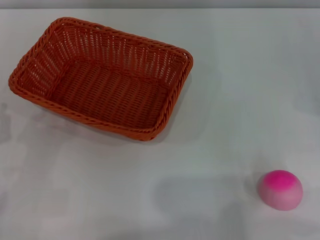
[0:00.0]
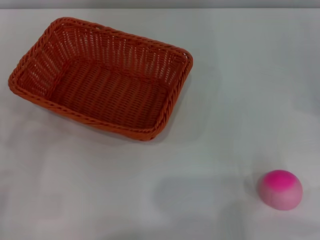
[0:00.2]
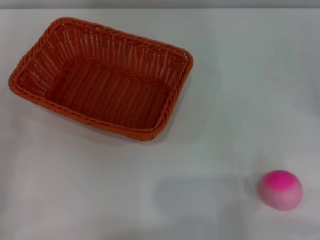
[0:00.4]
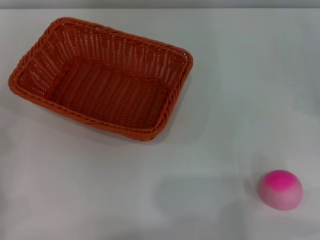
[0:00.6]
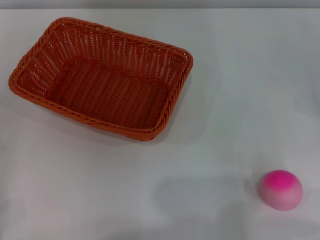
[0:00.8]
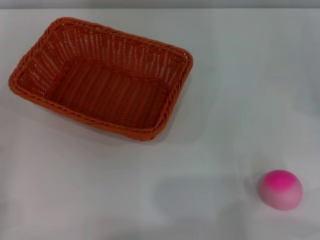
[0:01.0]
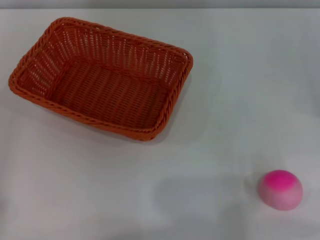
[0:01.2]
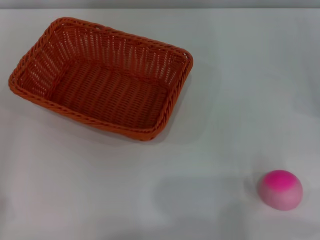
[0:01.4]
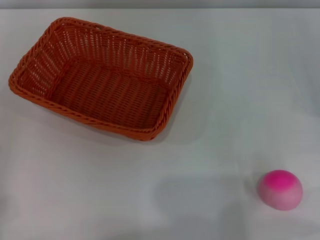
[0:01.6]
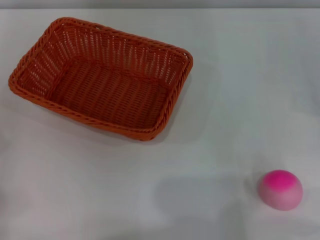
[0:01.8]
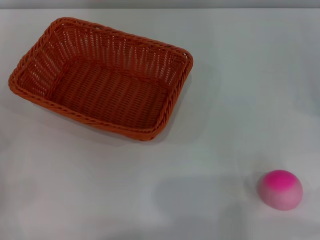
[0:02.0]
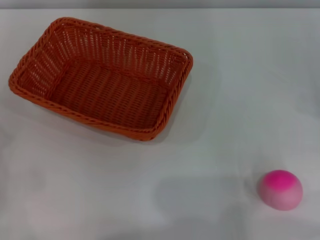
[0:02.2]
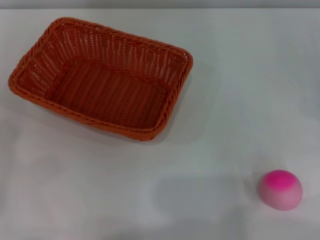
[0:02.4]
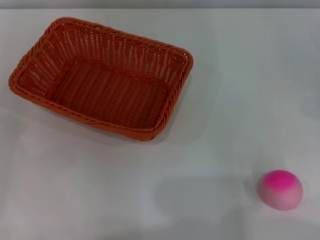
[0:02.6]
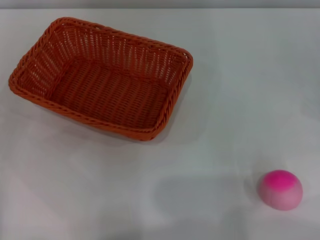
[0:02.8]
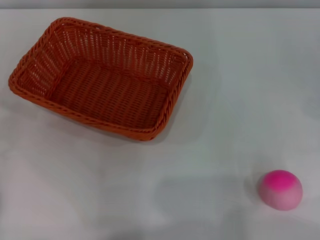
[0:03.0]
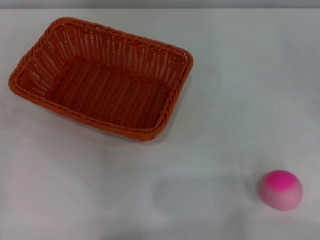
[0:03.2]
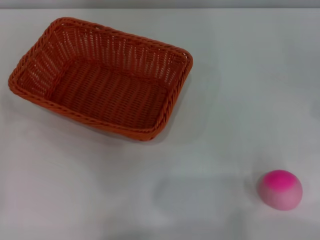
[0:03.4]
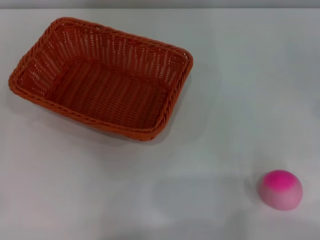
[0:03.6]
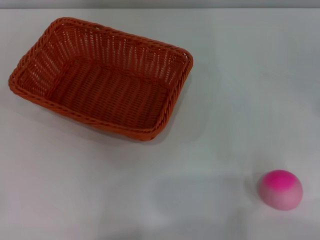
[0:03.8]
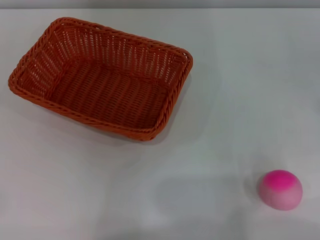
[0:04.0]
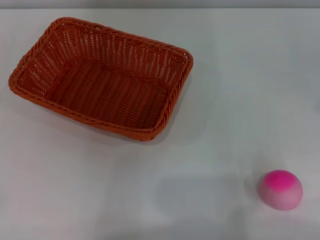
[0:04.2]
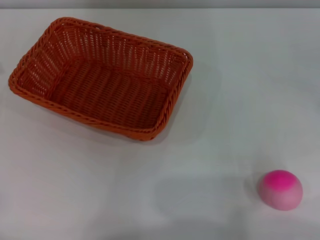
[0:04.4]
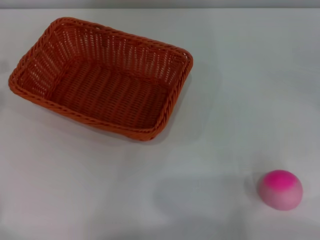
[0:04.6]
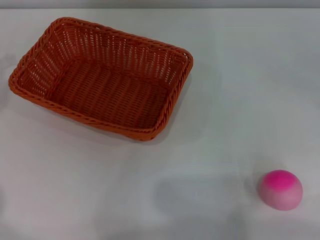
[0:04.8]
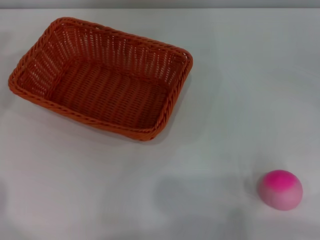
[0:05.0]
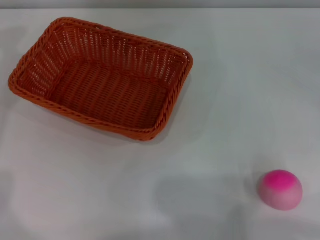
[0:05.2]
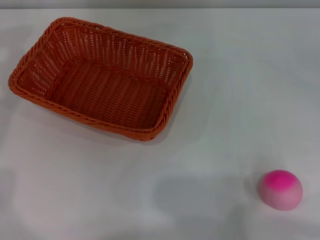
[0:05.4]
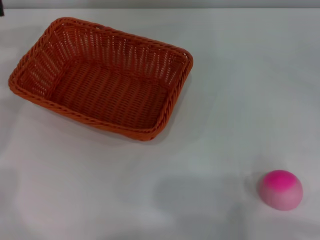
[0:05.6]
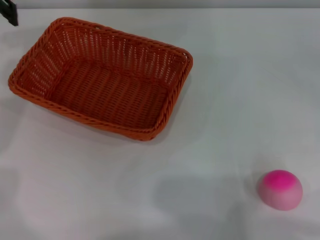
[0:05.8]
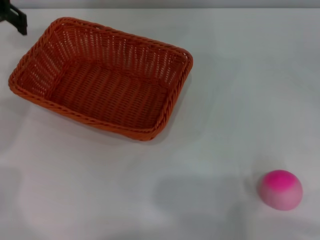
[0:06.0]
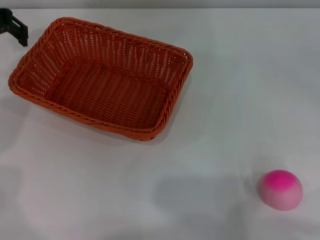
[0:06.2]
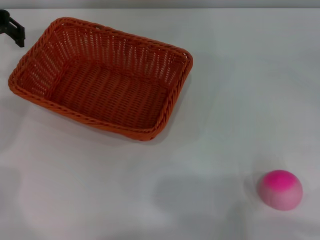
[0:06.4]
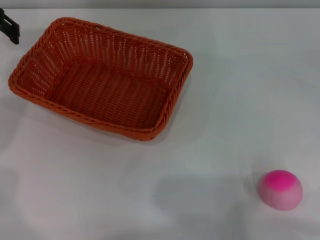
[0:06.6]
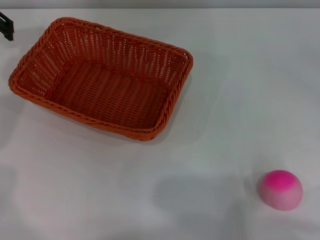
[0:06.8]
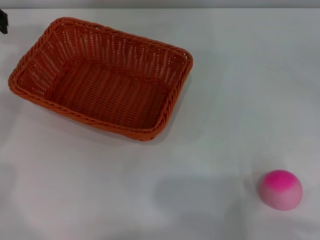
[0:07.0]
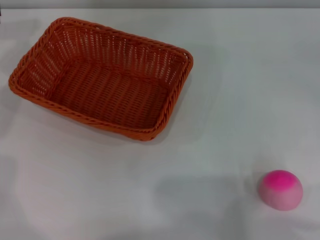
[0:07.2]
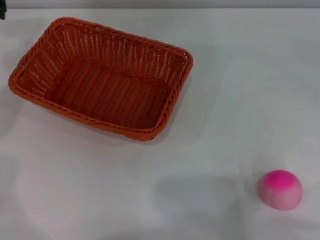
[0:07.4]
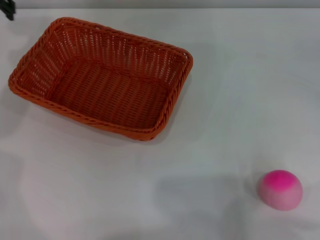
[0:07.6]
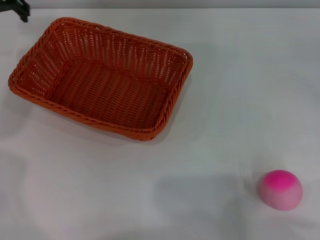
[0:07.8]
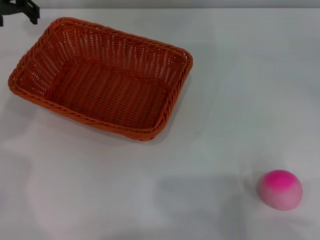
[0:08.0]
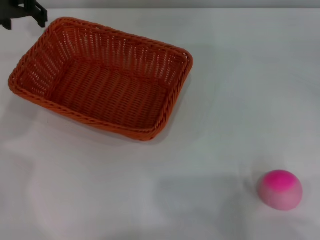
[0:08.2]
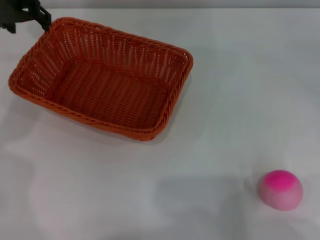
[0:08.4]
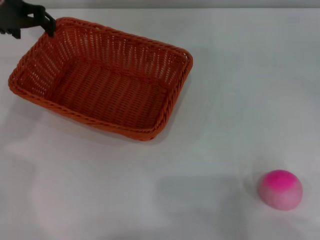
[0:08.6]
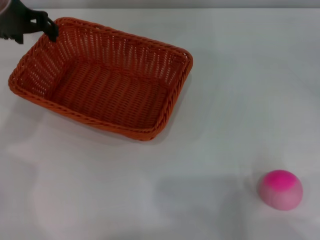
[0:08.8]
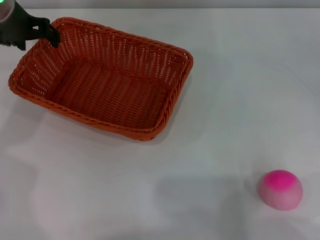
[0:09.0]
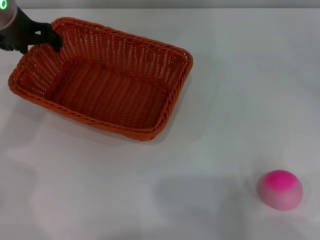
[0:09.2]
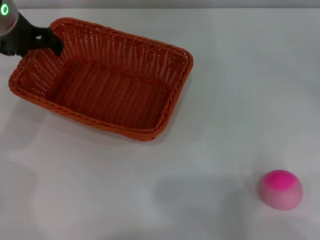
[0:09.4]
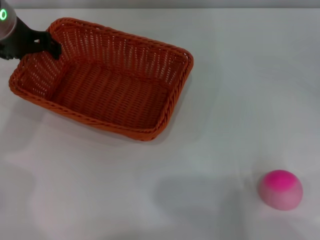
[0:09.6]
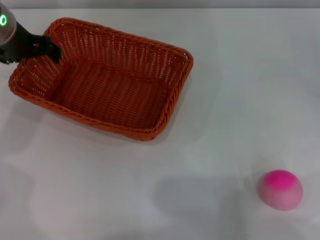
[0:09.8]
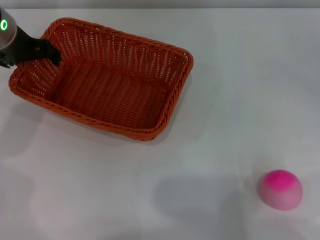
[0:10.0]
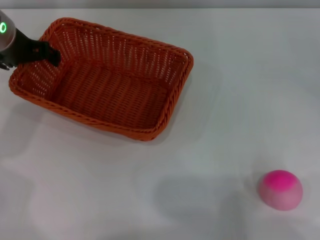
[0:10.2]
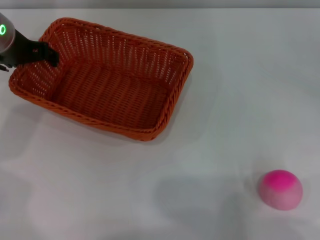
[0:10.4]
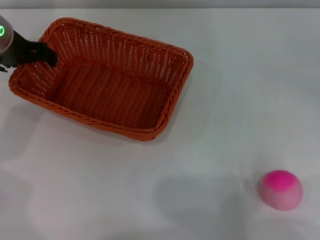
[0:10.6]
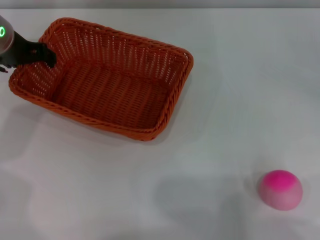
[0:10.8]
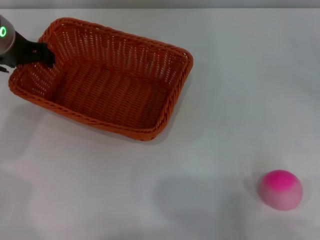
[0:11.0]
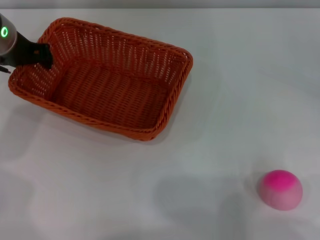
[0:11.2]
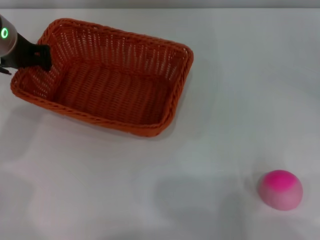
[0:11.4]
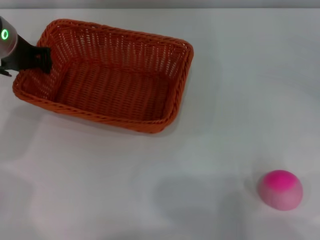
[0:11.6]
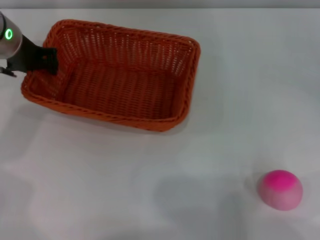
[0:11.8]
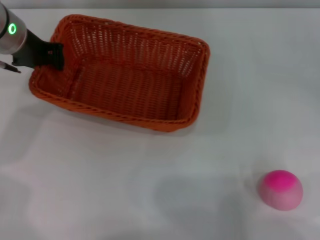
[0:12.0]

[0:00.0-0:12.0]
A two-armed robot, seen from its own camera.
0:04.4 to 0:06.0: The left gripper heads to the right and forward, covering approximately 10 cm.
0:07.6 to 0:09.0: The left gripper travels downward by some 5 cm.
0:09.0 to 0:10.4: The grippers make only small movements.
0:10.4 to 0:12.0: The left gripper closes its fingers.

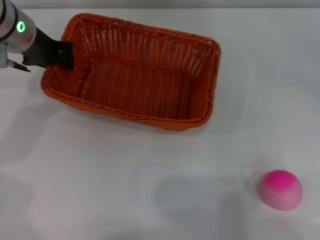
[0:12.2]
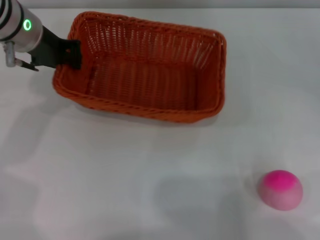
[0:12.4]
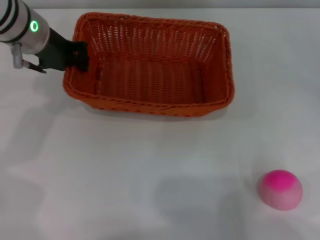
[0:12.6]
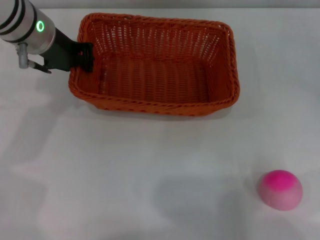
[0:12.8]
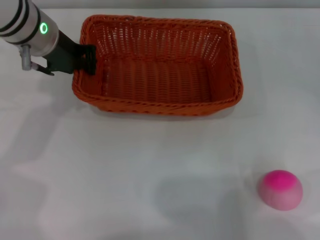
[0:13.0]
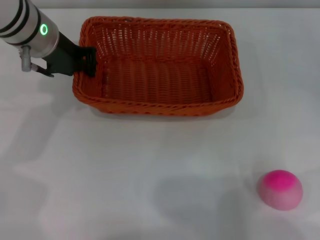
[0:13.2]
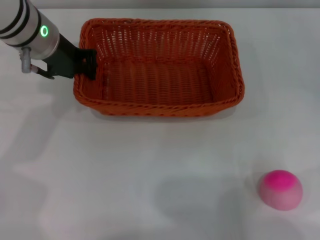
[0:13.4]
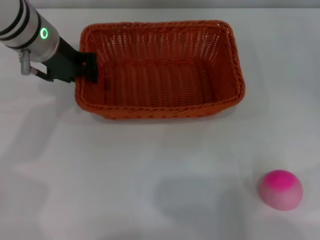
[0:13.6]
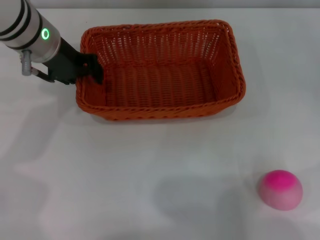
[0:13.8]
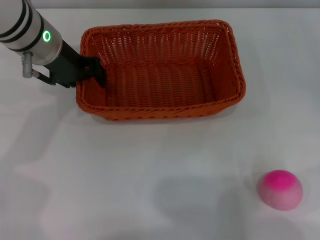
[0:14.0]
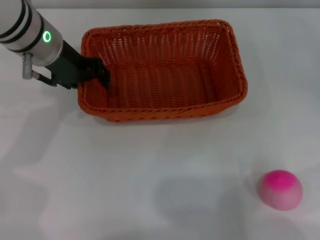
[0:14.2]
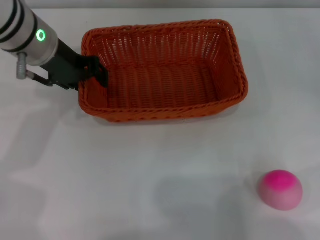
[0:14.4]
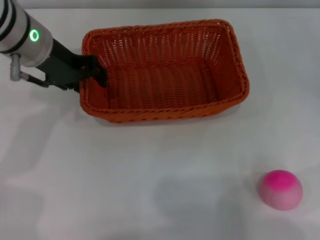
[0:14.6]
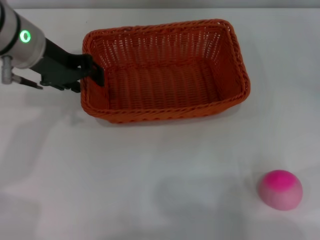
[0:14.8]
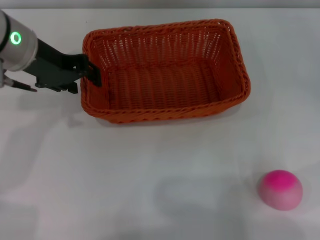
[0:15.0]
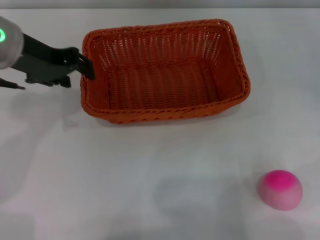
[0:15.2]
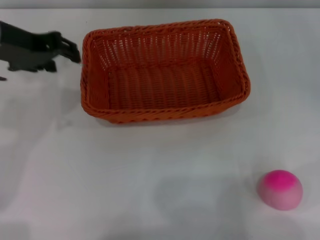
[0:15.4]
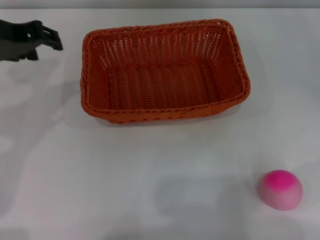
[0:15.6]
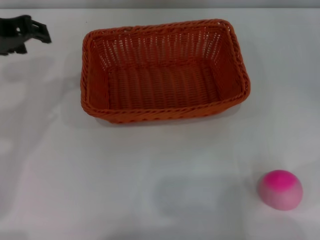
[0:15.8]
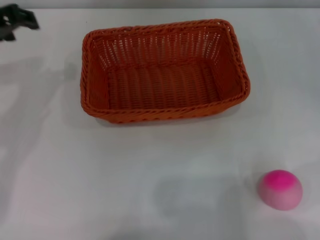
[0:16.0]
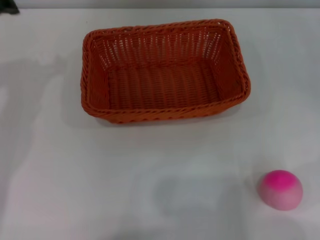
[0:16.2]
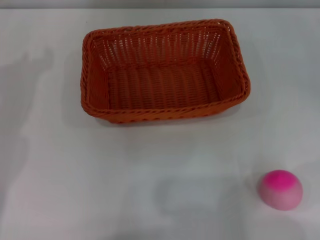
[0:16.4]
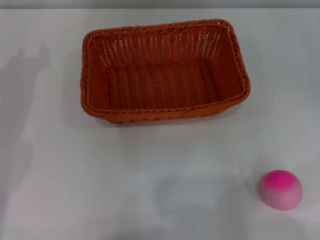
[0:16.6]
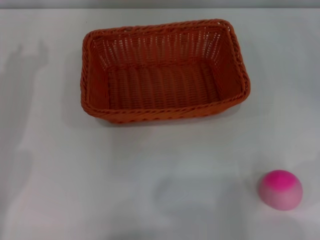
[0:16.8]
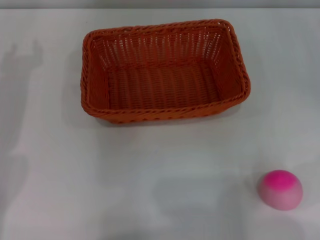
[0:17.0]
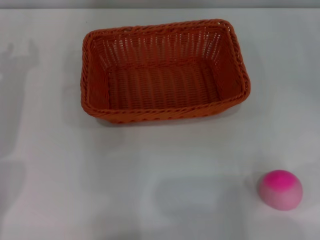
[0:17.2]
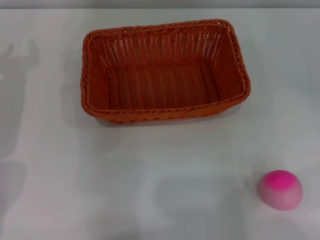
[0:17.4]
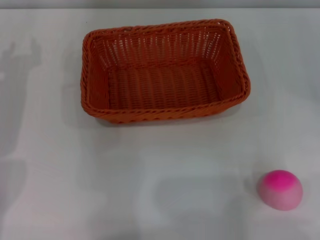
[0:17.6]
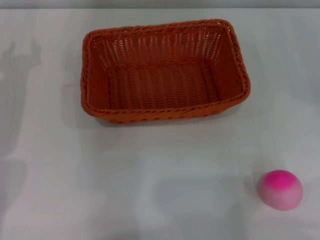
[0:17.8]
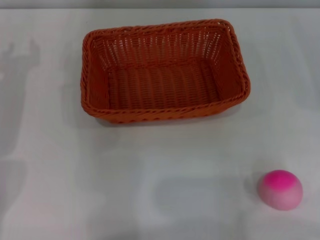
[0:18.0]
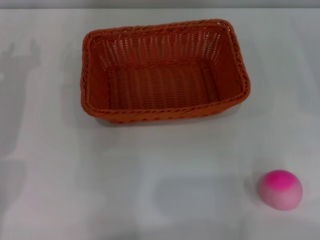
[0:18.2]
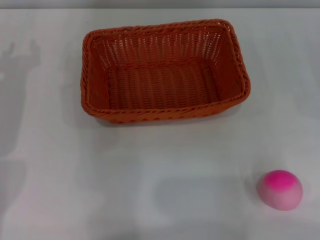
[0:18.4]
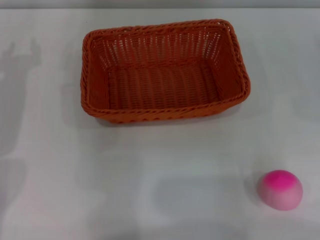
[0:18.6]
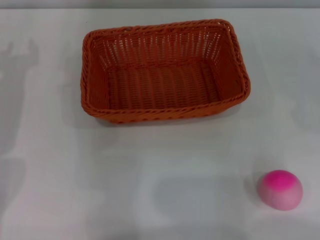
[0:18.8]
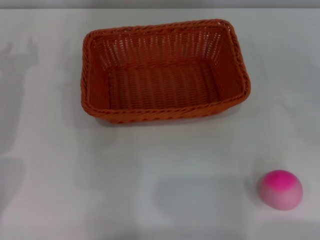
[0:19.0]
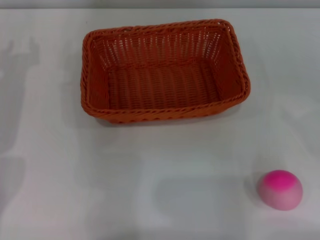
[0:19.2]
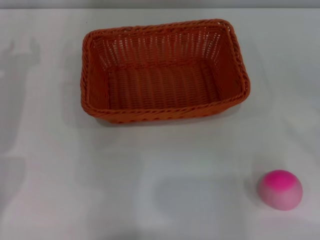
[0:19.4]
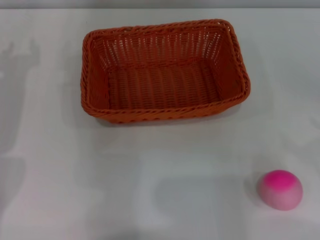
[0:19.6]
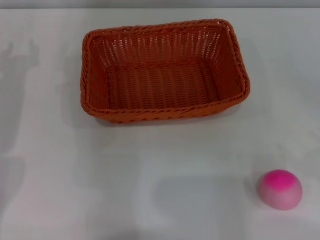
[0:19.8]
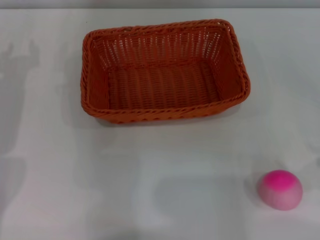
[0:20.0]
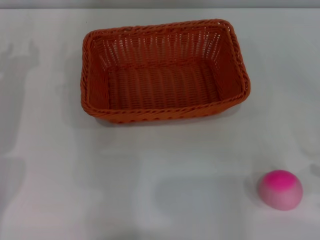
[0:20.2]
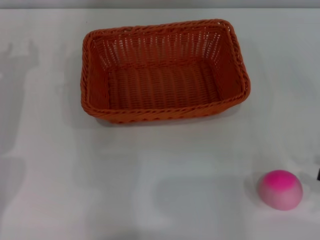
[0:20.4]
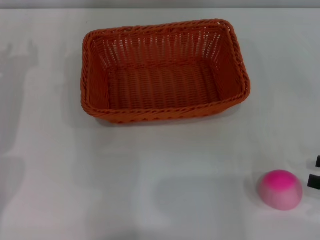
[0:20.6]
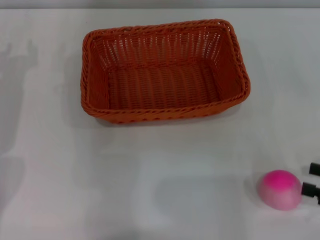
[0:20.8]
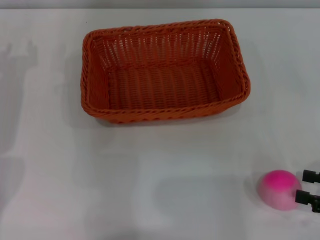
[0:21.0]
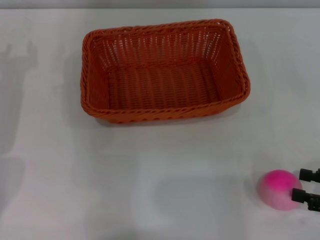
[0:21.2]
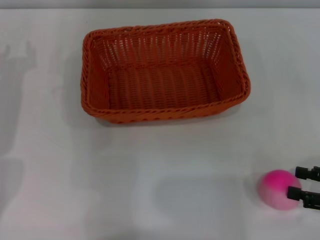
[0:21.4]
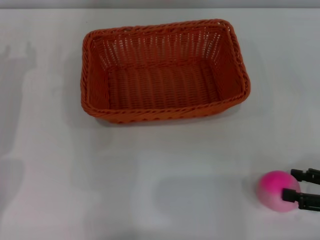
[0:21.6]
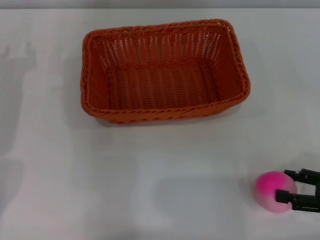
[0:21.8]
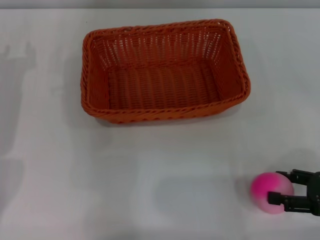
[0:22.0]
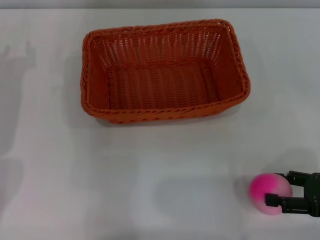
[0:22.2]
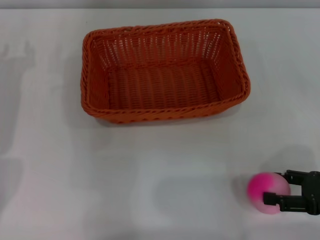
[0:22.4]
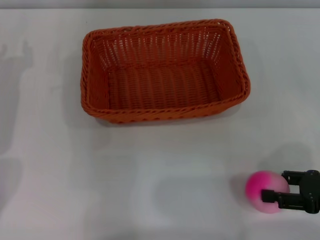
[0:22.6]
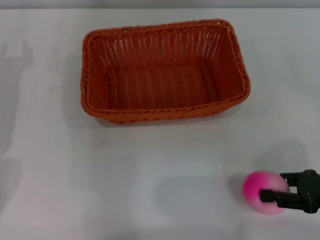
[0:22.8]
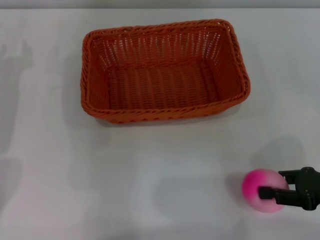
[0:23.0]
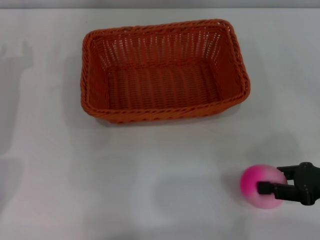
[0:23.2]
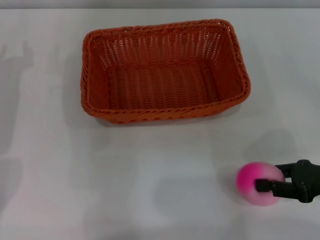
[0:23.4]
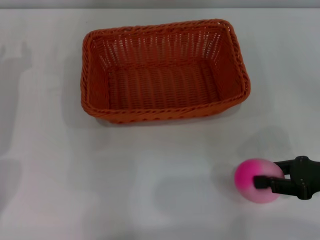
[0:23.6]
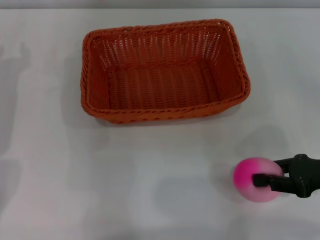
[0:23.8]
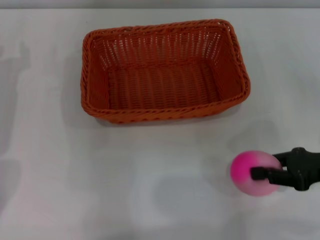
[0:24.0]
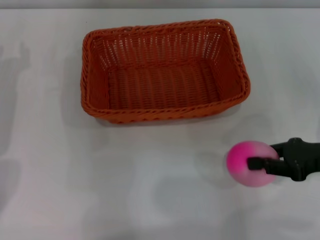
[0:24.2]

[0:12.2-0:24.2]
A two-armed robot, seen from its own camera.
Step, 0:12.2 to 0:15.6: Place the light basket in the center of view with the right gripper.
0:12.2 to 0:13.8: The grippers stay close to where they were, moving slightly.
0:13.8 to 0:15.2: The left gripper is displaced backward by about 5 cm, and opens its fingers.
0:15.2 to 0:16.6: The left gripper heads to the left, covering about 5 cm.
0:19.8 to 0:21.2: The right gripper goes approximately 5 cm to the left.
0:21.2 to 0:22.6: The right gripper shifts by approximately 5 cm.
0:22.6 to 0:24.2: The right gripper travels forward by about 5 cm, and closes.
